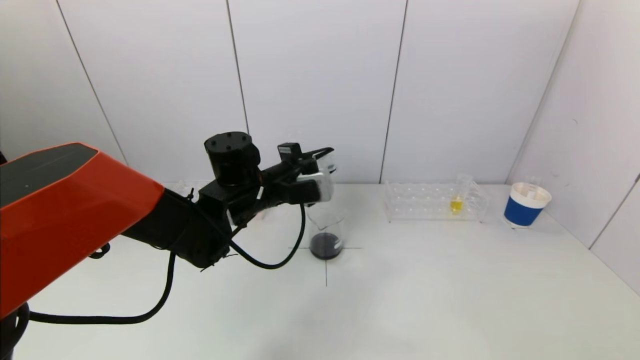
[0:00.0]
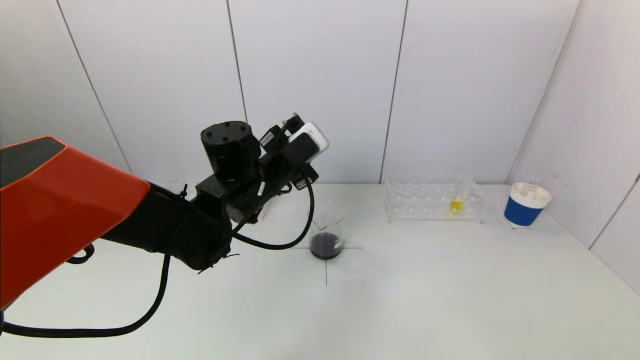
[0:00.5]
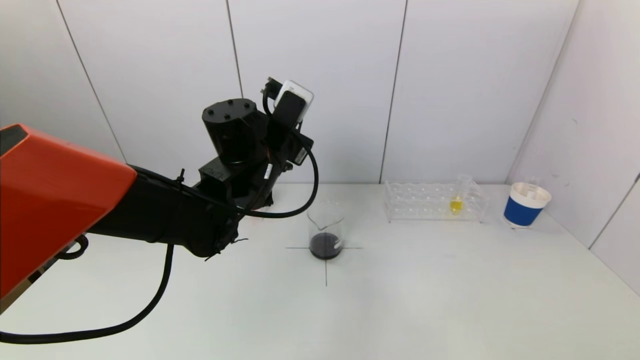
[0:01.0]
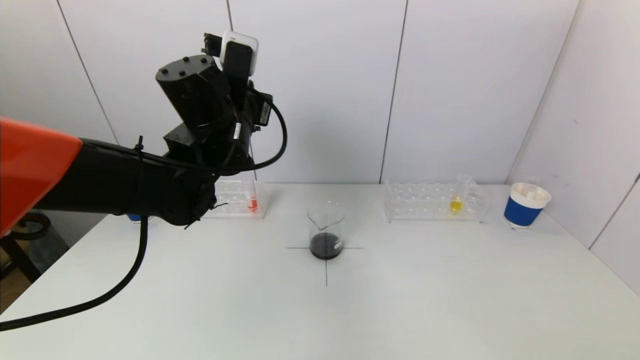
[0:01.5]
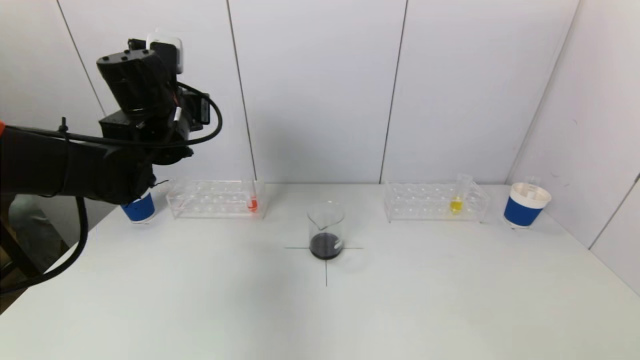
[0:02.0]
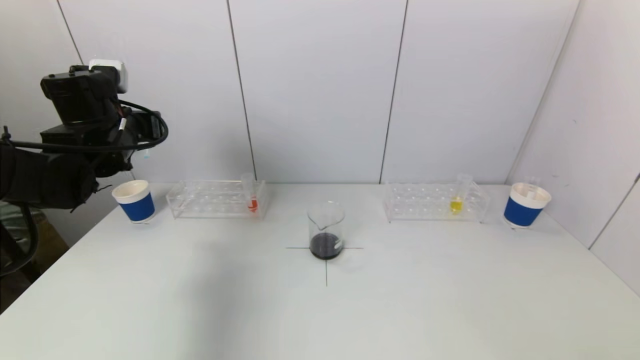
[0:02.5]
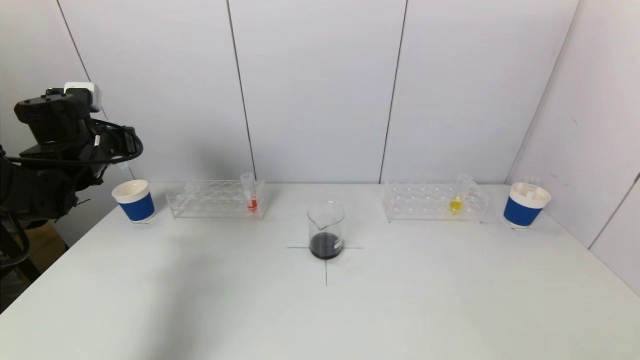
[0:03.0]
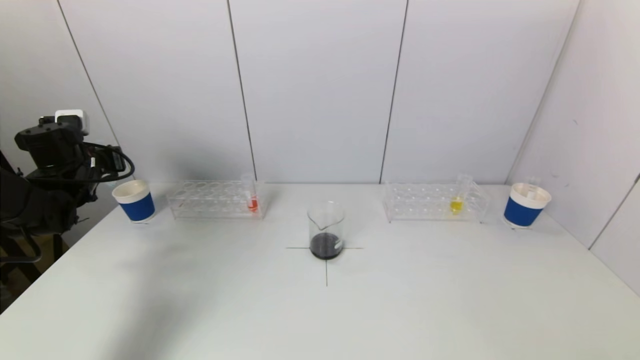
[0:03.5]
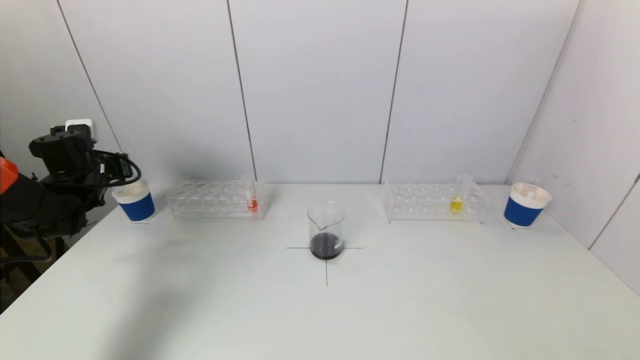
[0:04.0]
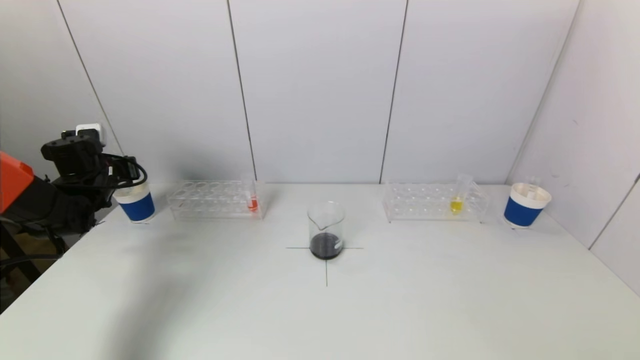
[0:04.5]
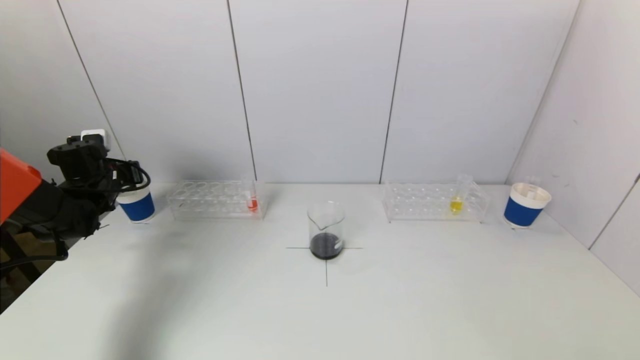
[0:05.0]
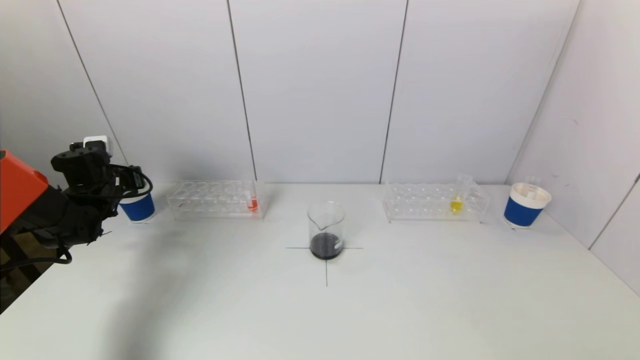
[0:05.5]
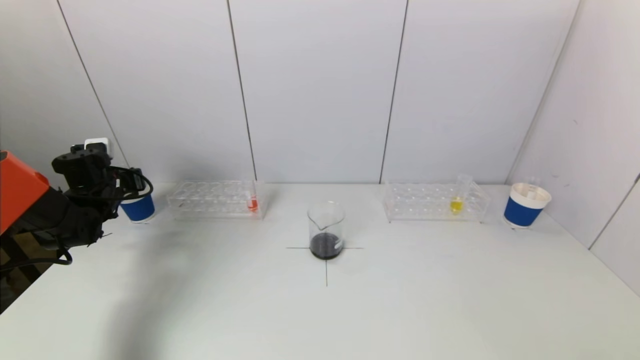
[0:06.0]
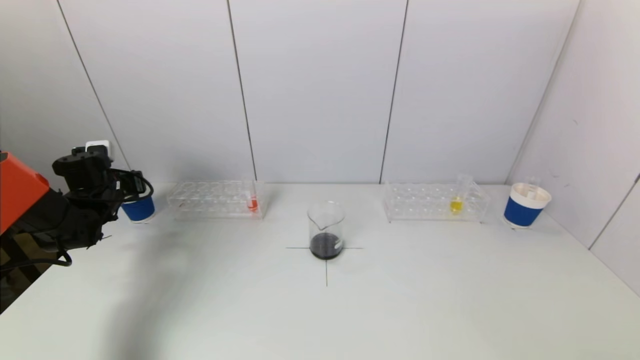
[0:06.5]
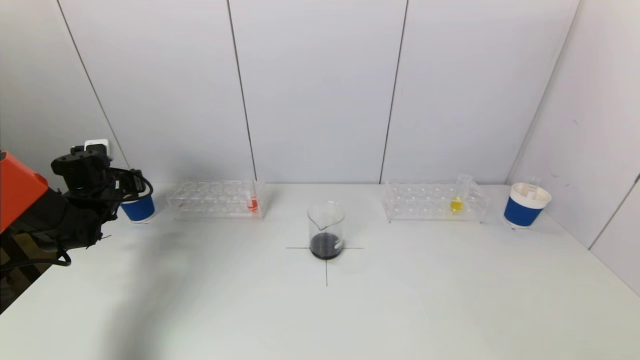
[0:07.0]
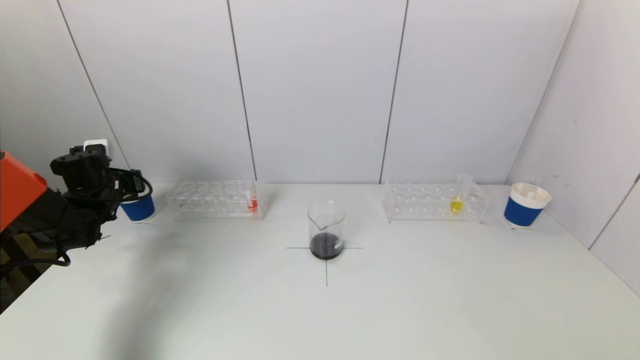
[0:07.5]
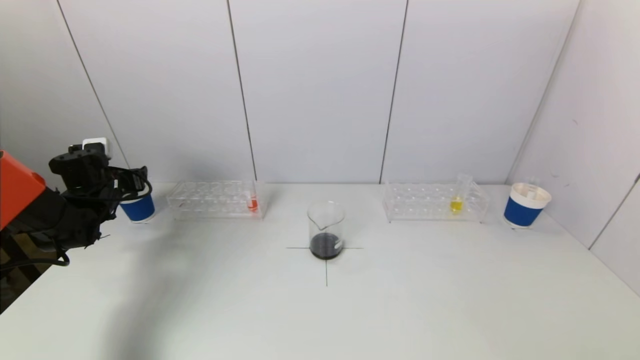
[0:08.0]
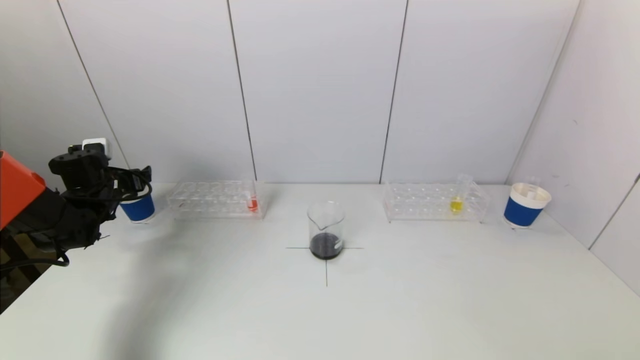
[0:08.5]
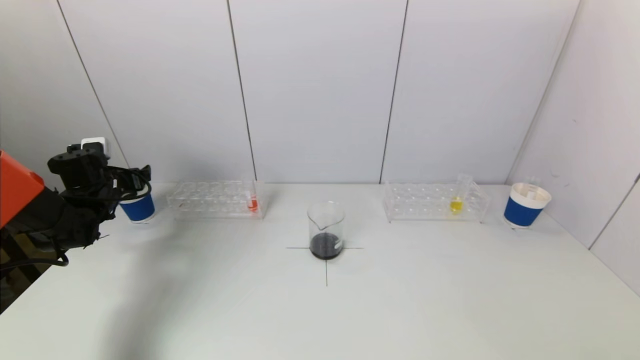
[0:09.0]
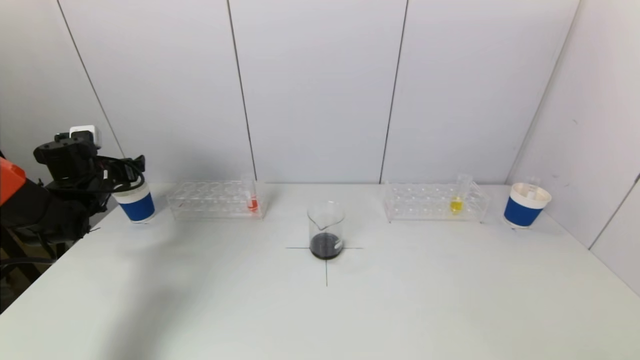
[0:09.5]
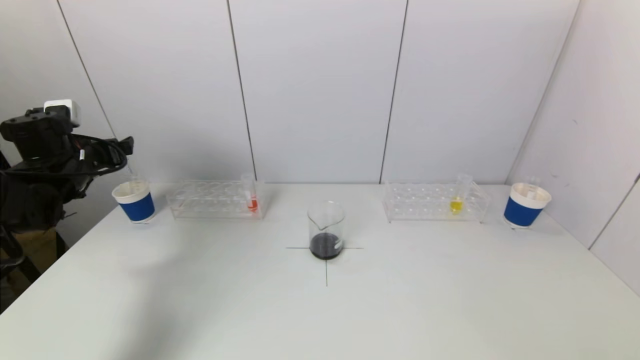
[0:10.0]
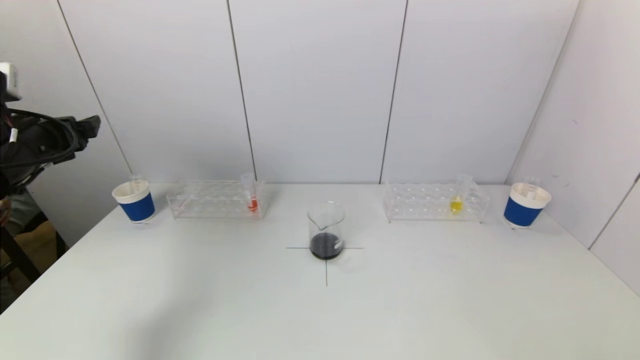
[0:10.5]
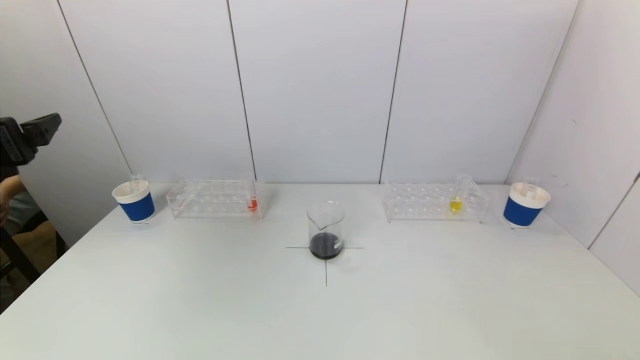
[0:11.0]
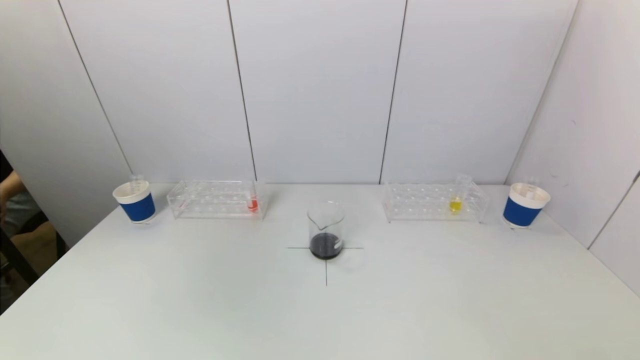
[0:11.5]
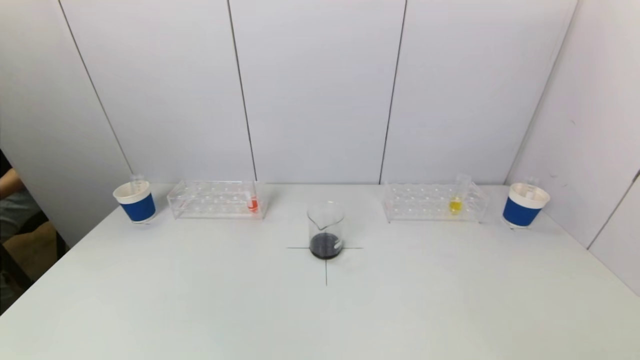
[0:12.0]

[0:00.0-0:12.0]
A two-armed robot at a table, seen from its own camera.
Task of the whole recording: pick up a test tube with pigment on left test tube rack and a test tube with pigment on right test tube rack by grippers and pour them into the beaker.
Step, 0:00.0 to 0:08.0: Place the test tube into the paper cup with the left gripper.
0:00.0 to 0:02.0: The left gripper travels to the left and upward by roughly 15 cm.
0:02.0 to 0:04.0: The left gripper moves to the left and downward, roughly 25 cm.
0:04.0 to 0:06.0: The grippers move only a little.
0:06.0 to 0:08.0: The left gripper opens.
0:08.0 to 0:10.0: The left gripper goes approximately 10 cm upward.
0:10.0 to 0:12.0: The left gripper goes some 40 cm backward.

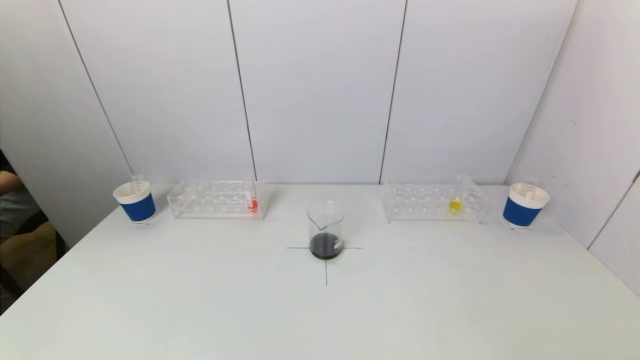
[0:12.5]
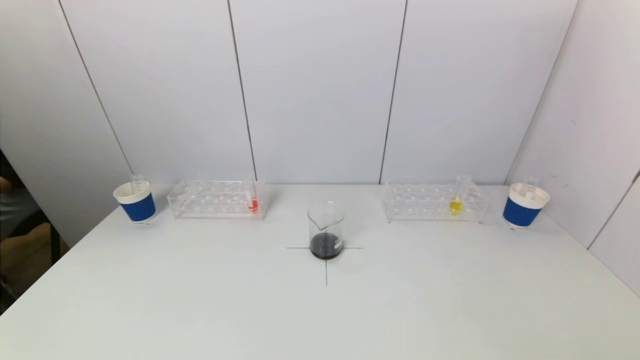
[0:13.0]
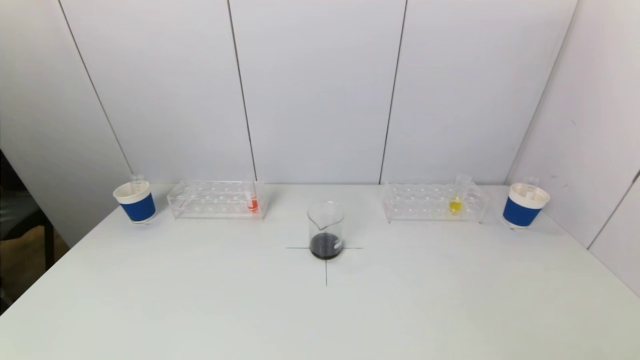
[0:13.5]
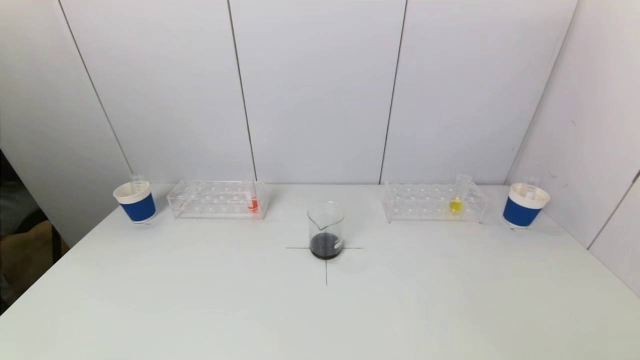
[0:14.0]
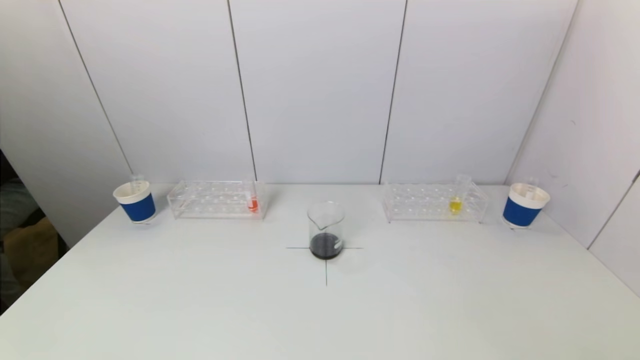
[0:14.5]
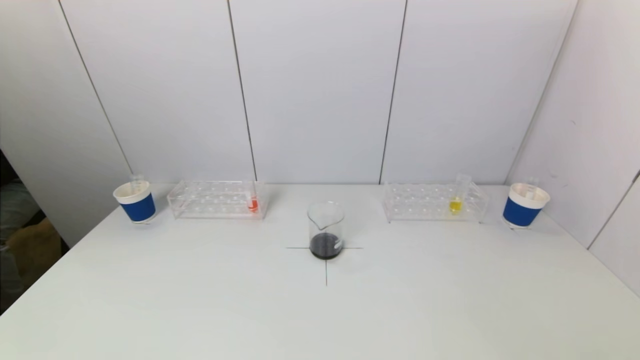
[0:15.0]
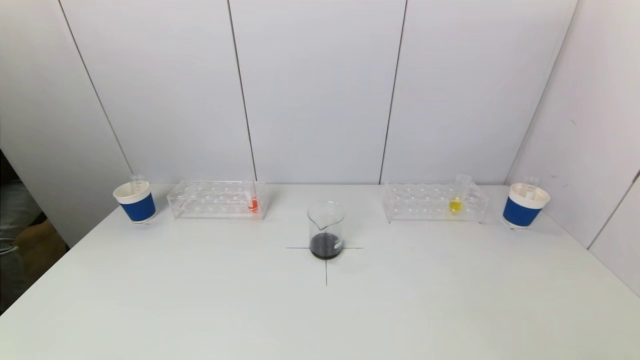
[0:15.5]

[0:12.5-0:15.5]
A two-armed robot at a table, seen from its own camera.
Task of the whole recording: pick up a test tube with pigment on left test tube rack and a test tube with pigment on right test tube rack by grippers and pour them into the beaker.
0:14.0 to 0:15.5: Both grippers stay about where they are.

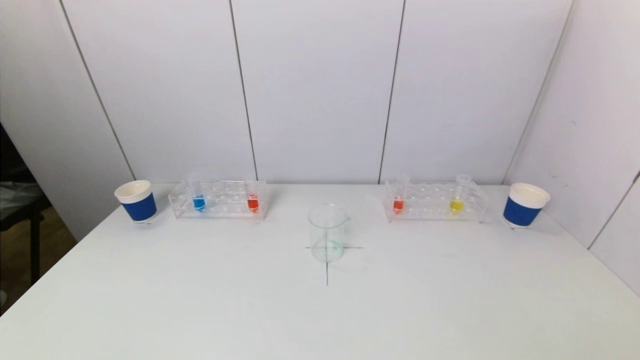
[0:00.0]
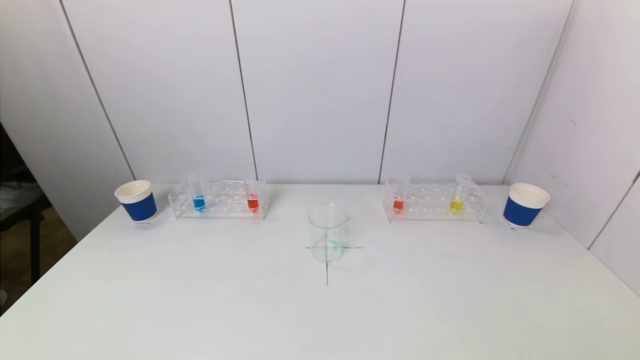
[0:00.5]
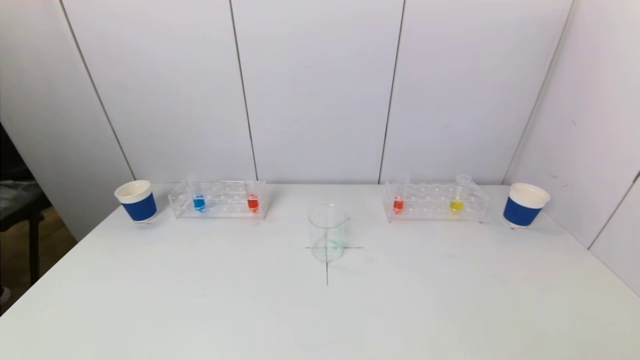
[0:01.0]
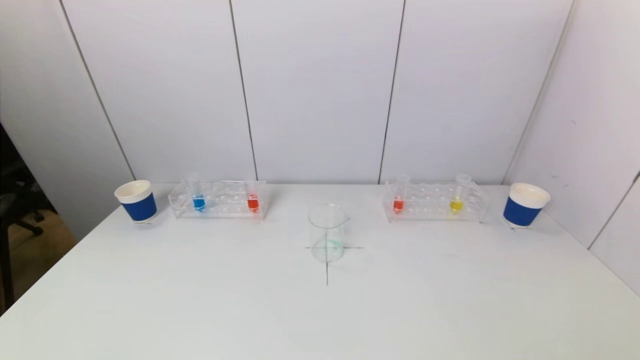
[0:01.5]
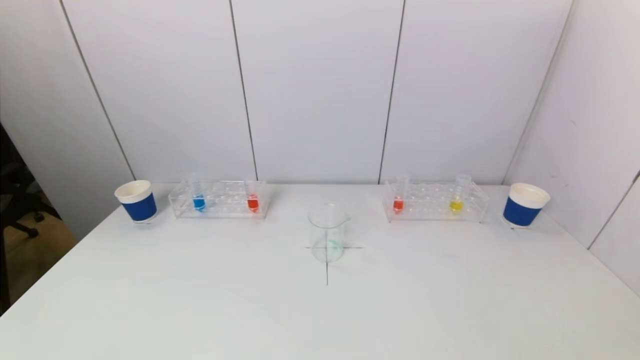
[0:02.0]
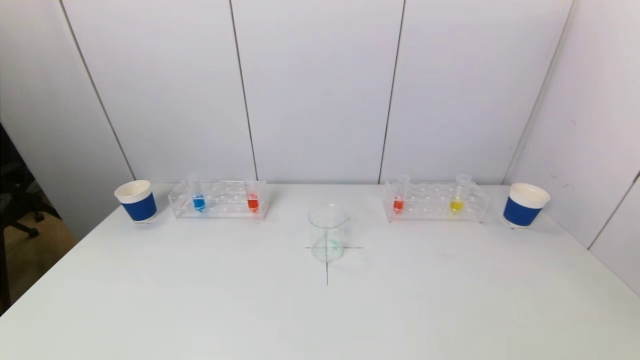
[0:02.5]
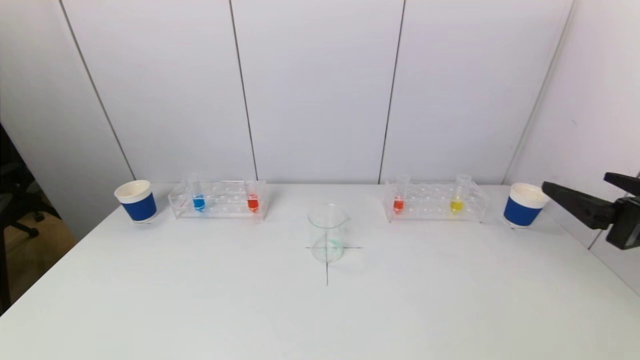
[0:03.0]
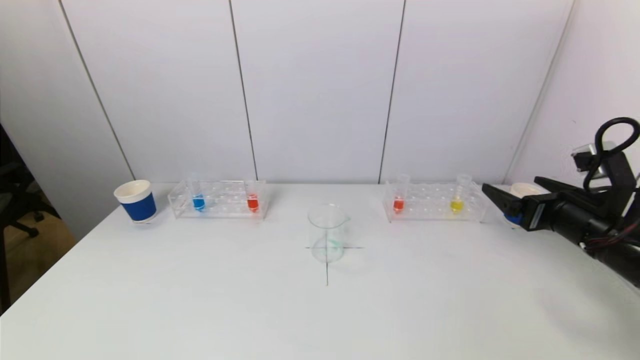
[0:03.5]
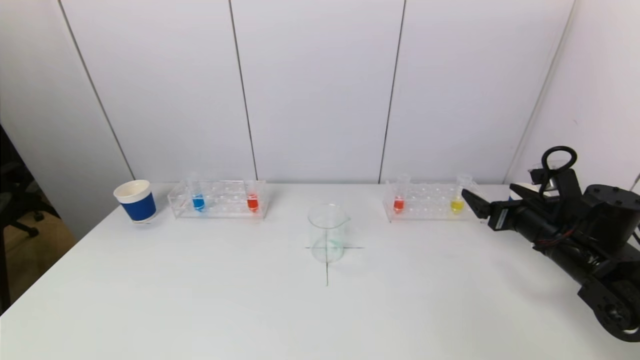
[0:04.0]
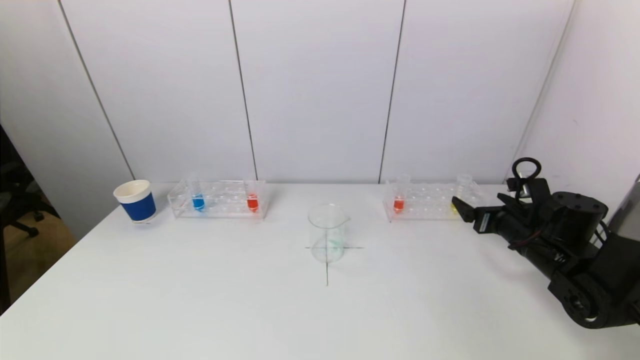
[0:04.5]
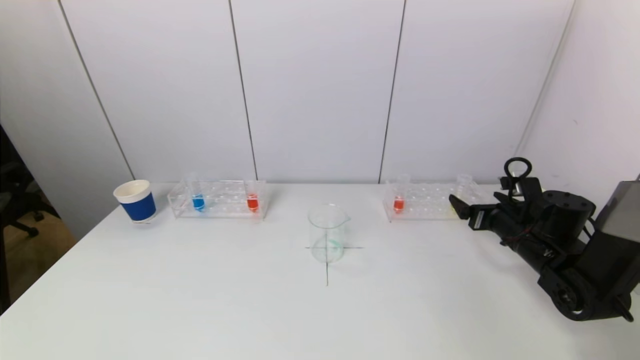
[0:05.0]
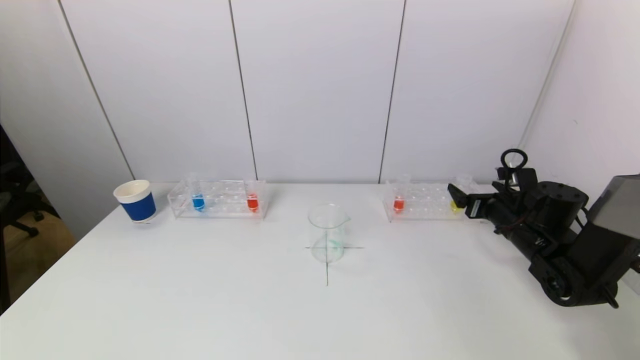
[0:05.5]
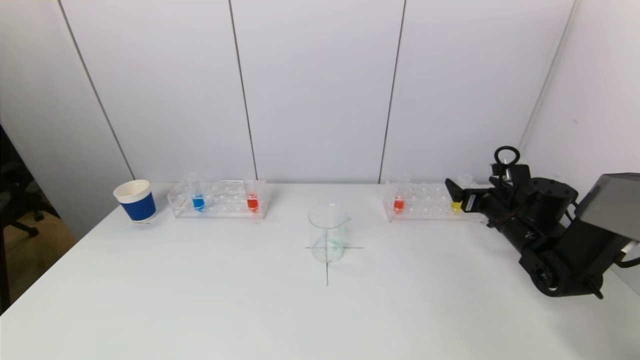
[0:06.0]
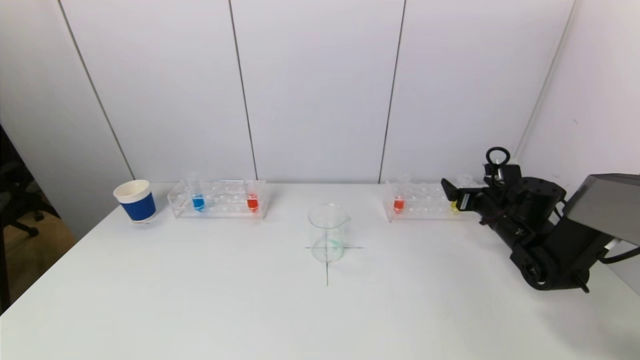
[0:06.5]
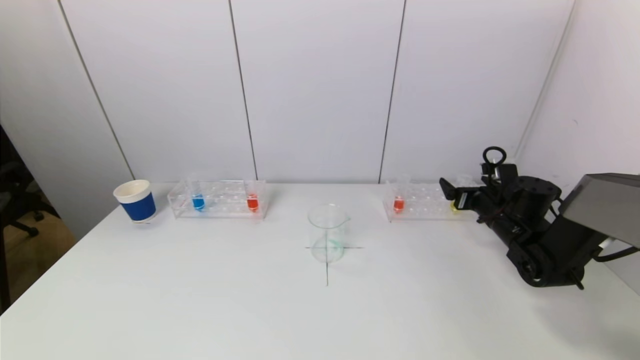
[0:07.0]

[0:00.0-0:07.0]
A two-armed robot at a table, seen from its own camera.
Task of the whole recording: pick up a test tube with pigment on left test tube rack and a test tube with pigment on right test tube rack by grippers and pour them into the beaker.
0:02.0 to 0:03.5: The right gripper moves forward, about 30 cm.
0:03.5 to 0:05.0: The right gripper moves downward and forward, about 15 cm.
0:05.0 to 0:07.0: The right gripper shifts some 5 cm forward.
